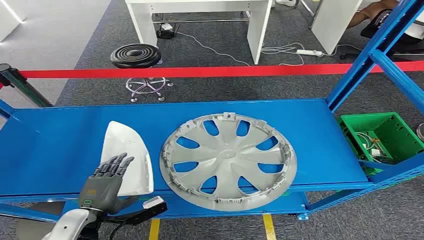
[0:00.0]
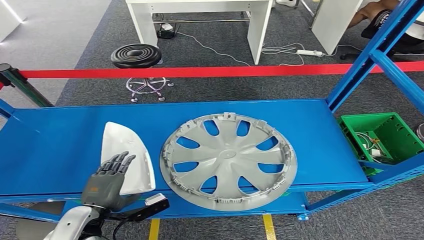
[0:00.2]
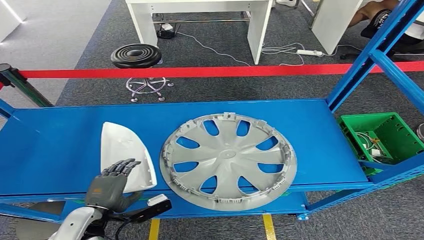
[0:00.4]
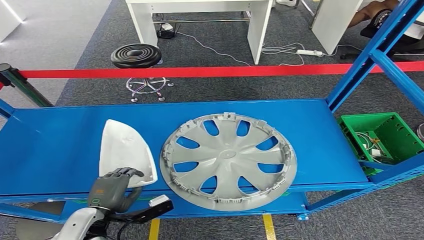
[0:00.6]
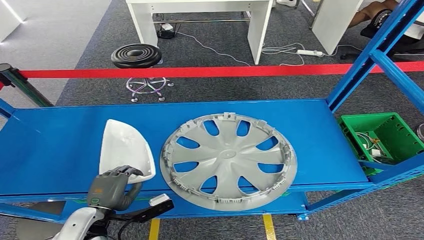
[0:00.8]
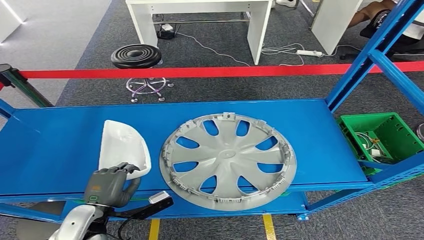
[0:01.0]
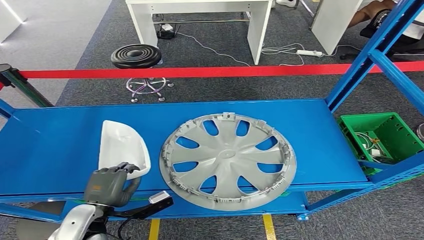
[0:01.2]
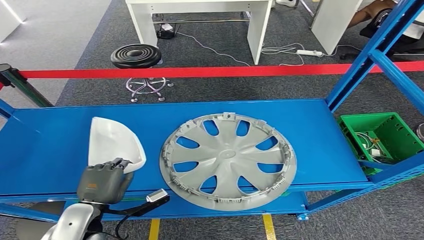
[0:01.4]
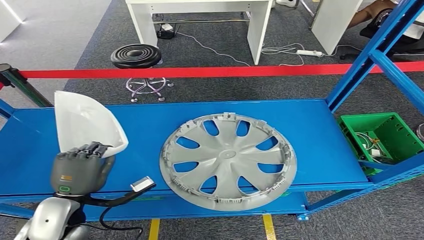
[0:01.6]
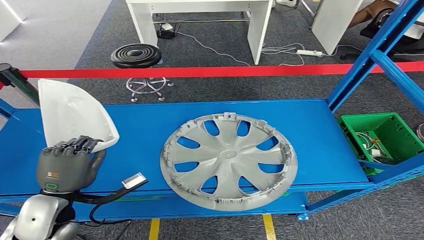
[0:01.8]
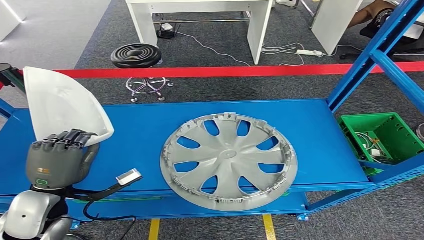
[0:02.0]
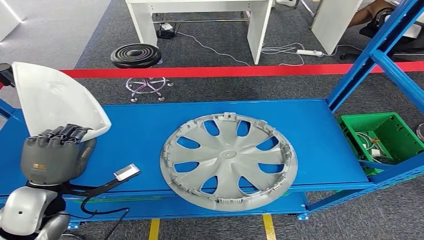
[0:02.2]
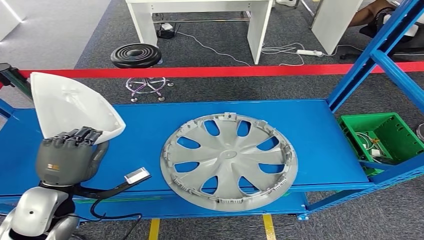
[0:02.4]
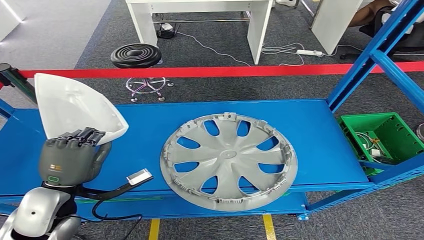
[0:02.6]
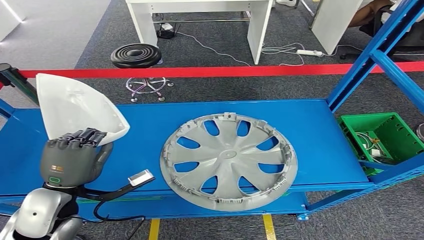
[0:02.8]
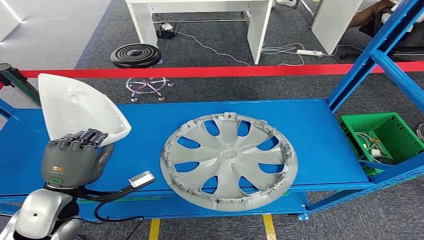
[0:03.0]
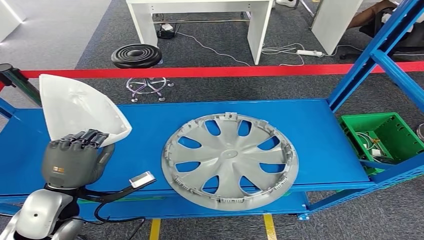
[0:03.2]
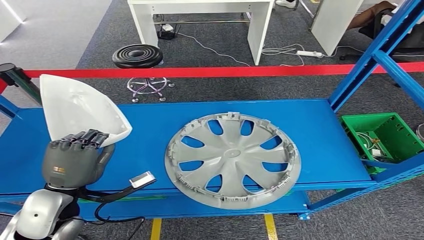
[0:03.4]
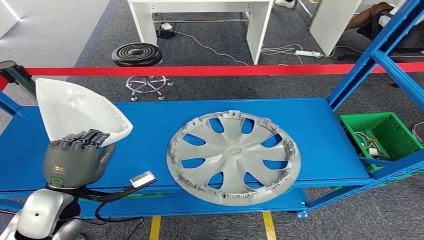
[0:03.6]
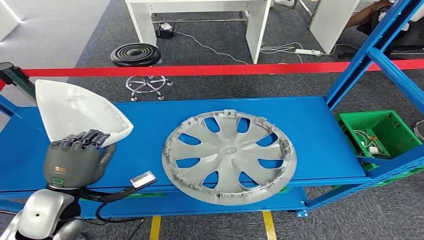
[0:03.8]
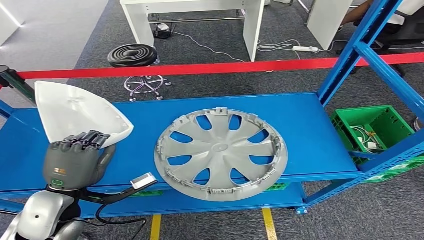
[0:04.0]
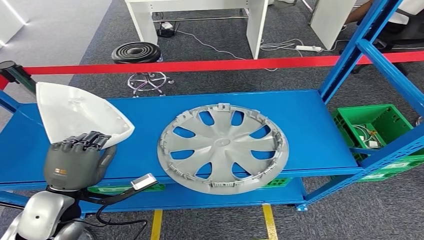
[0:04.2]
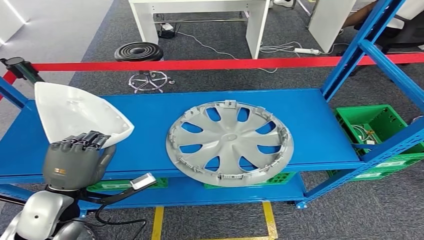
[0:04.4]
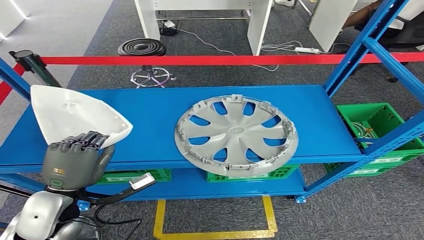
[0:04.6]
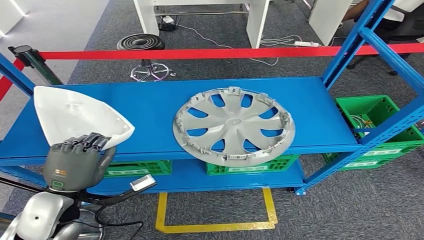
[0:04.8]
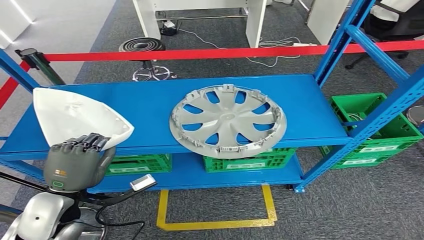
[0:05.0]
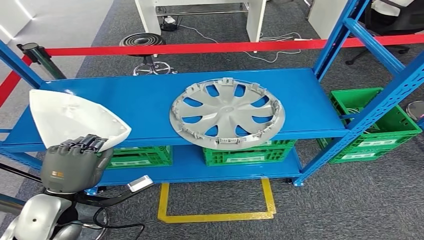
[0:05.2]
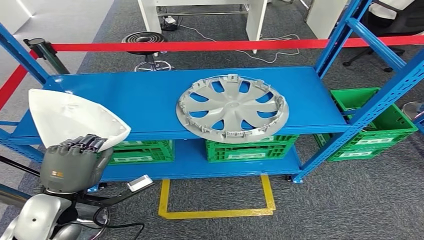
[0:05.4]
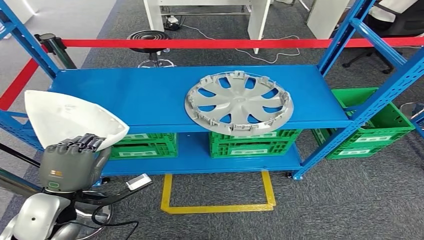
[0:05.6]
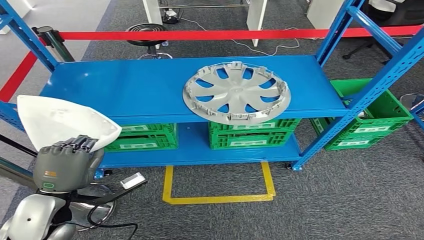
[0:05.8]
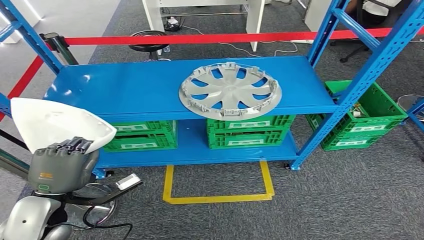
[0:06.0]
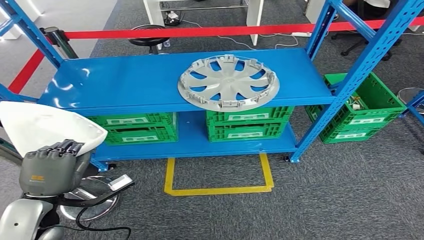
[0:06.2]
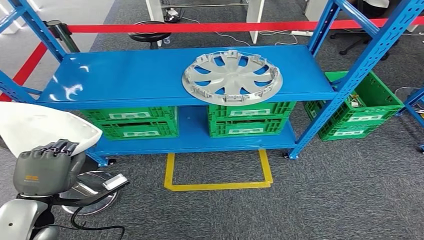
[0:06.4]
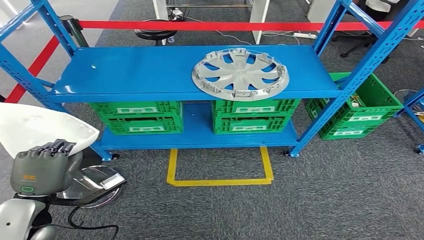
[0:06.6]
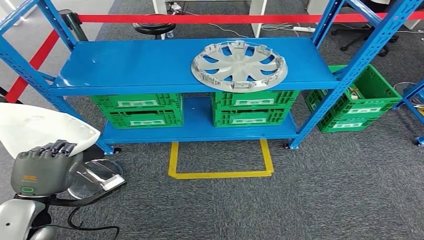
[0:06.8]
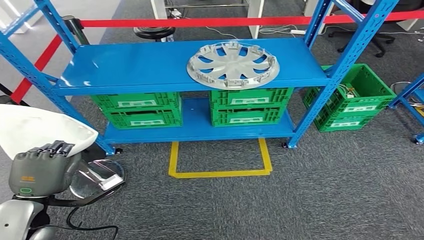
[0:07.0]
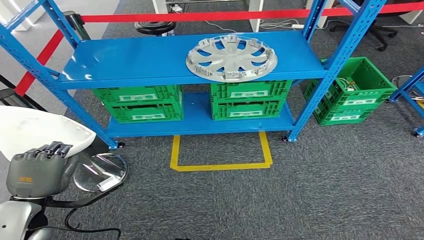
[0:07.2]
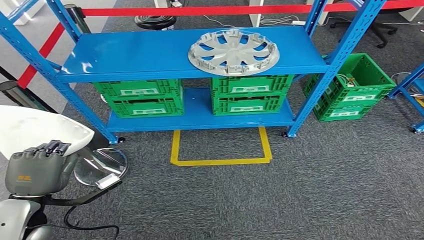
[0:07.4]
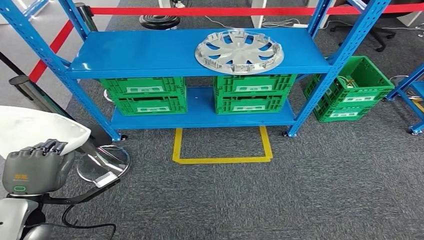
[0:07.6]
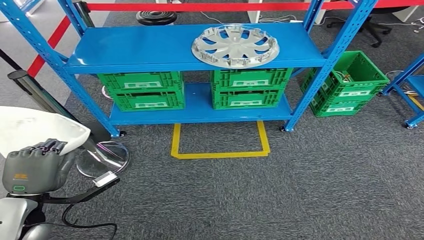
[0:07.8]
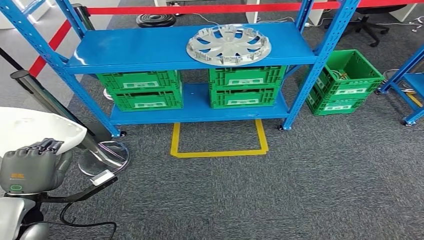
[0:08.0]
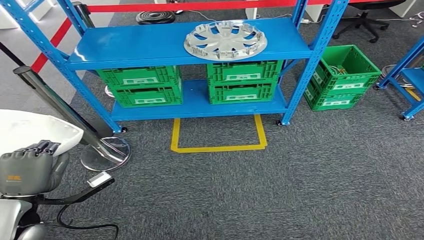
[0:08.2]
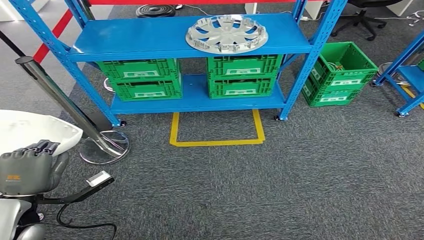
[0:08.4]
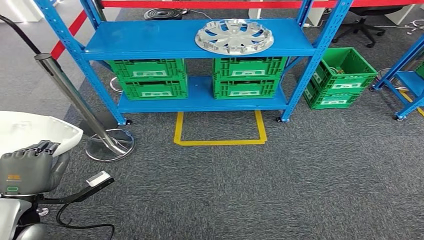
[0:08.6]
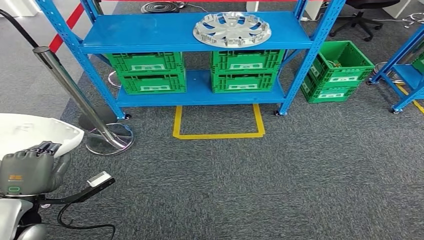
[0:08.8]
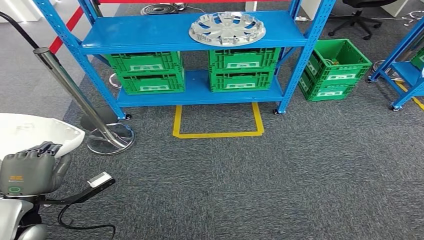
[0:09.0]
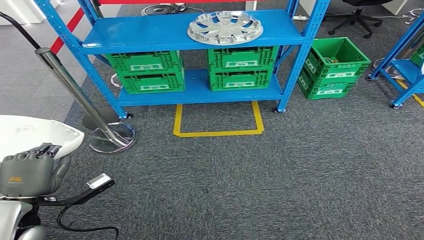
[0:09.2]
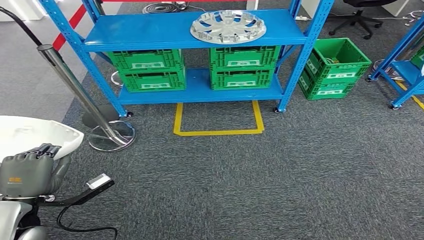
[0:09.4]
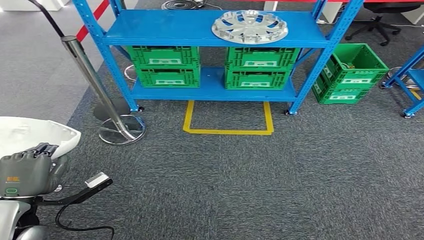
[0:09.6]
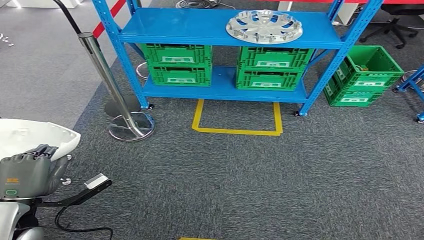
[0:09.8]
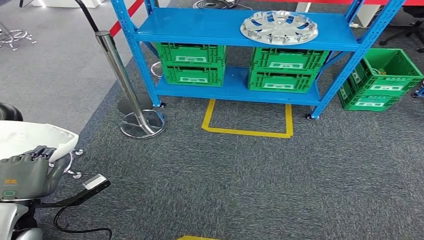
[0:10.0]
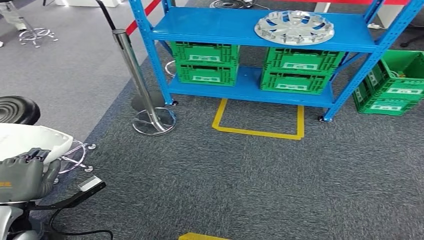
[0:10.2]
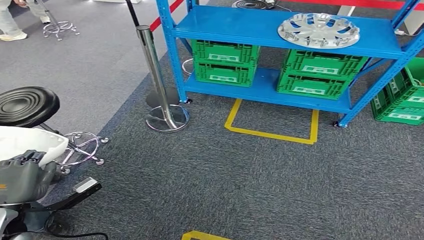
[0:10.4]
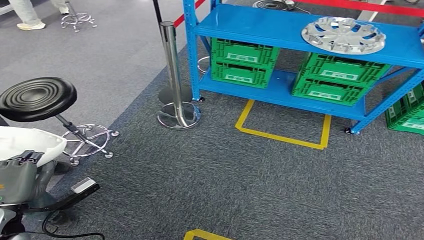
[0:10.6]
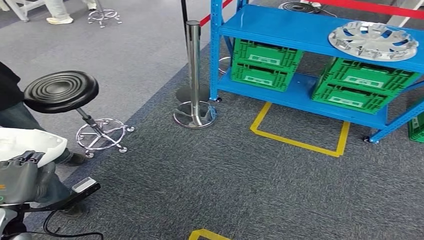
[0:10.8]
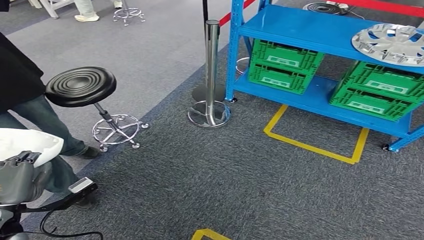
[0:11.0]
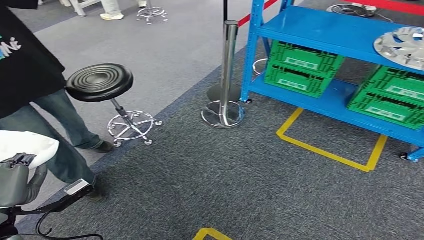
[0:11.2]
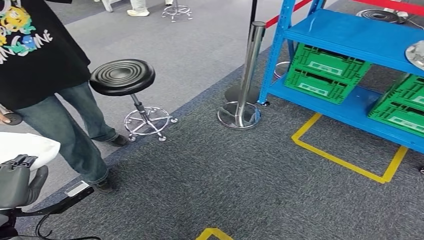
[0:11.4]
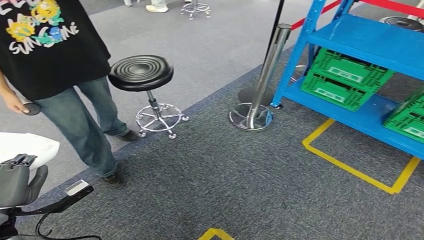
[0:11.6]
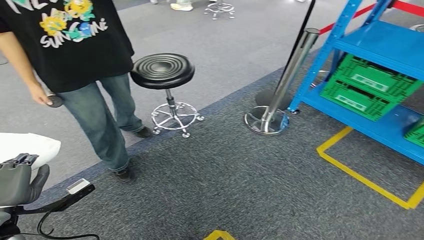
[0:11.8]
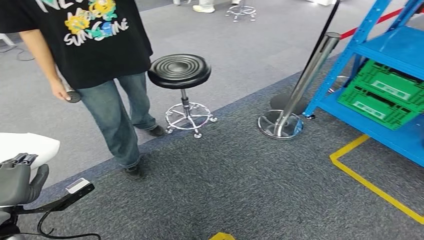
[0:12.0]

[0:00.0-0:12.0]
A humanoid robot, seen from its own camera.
Step, 0:00.0 to 0:04.2: Pick up the small parts from the shelf.
0:01.6 to 0:03.0: There are only small adjustments of the hands.

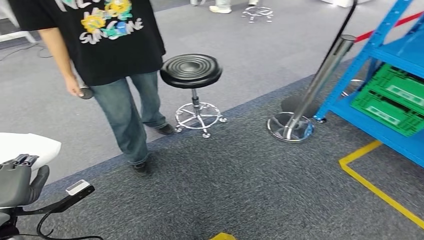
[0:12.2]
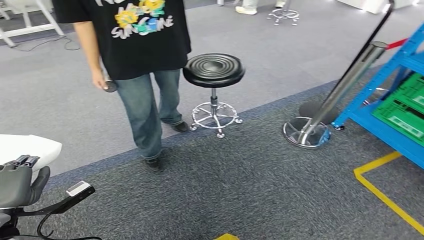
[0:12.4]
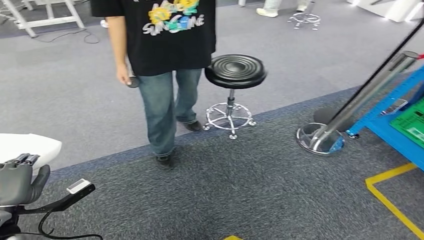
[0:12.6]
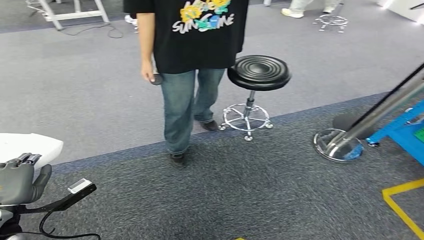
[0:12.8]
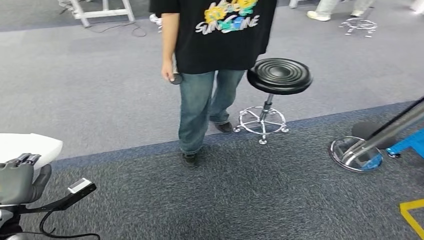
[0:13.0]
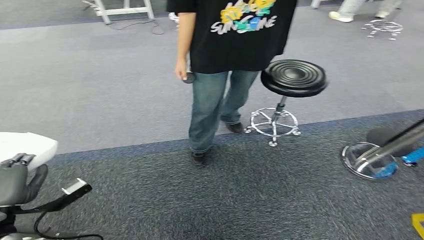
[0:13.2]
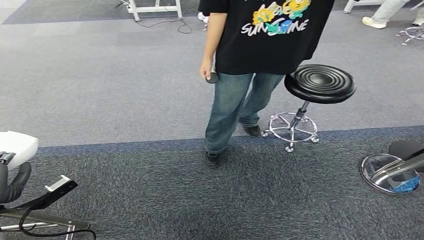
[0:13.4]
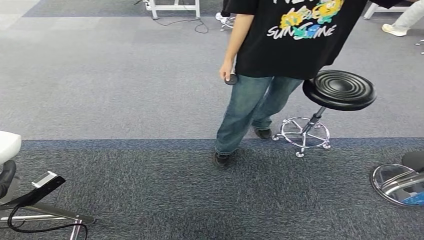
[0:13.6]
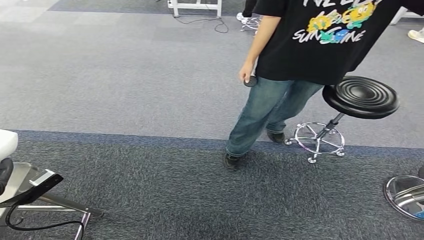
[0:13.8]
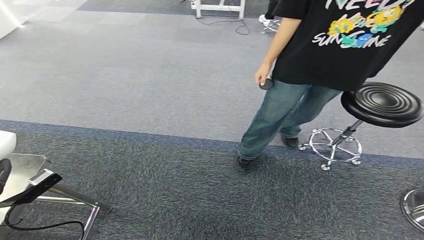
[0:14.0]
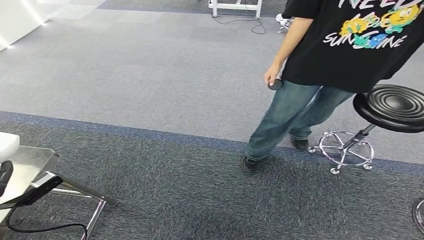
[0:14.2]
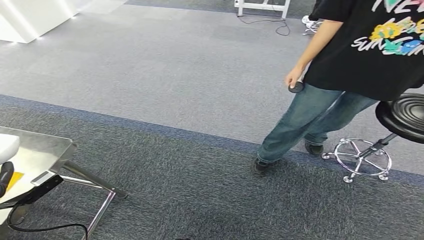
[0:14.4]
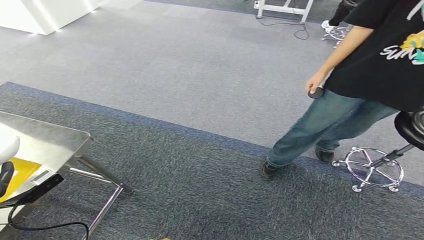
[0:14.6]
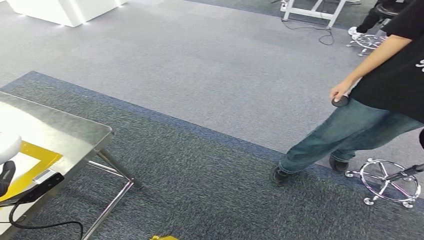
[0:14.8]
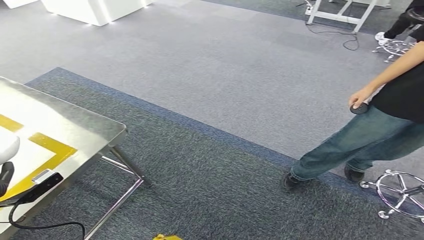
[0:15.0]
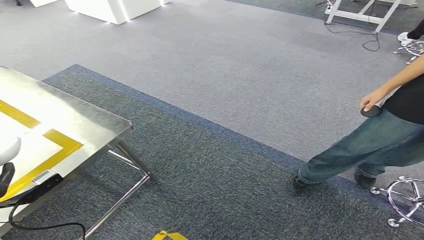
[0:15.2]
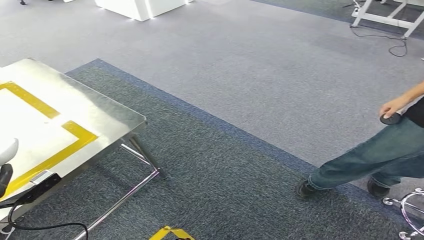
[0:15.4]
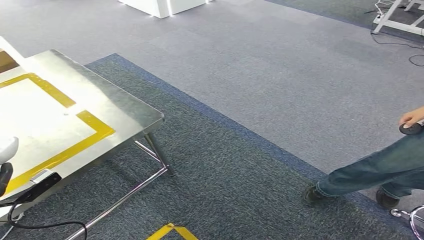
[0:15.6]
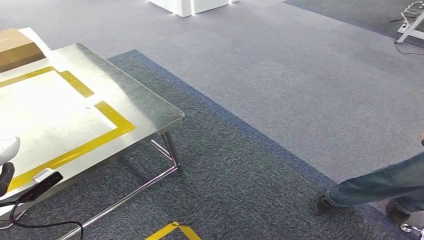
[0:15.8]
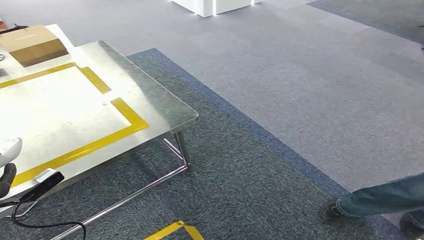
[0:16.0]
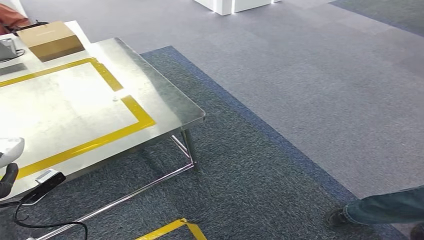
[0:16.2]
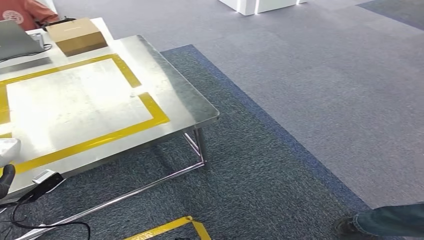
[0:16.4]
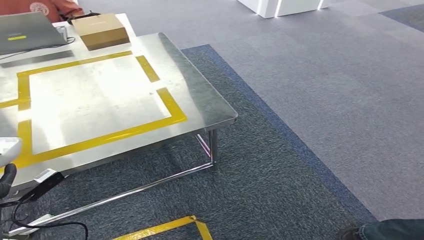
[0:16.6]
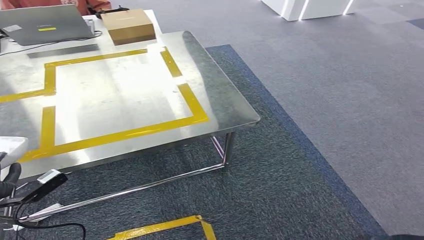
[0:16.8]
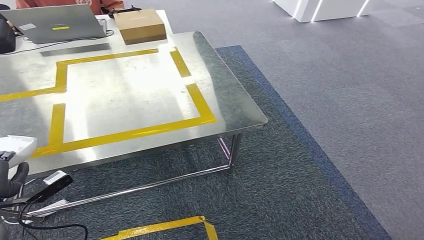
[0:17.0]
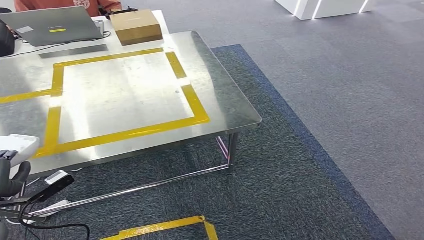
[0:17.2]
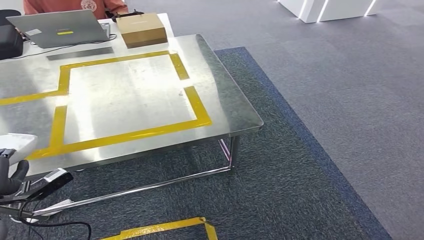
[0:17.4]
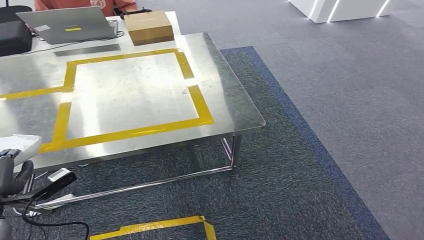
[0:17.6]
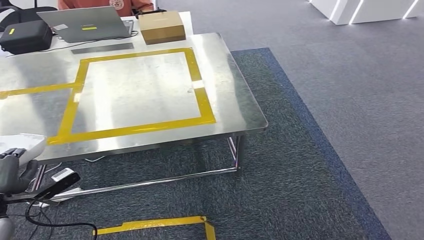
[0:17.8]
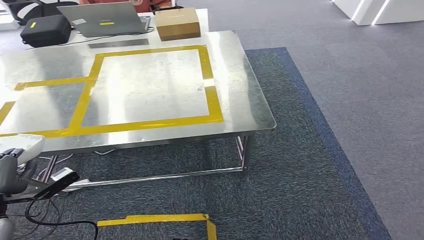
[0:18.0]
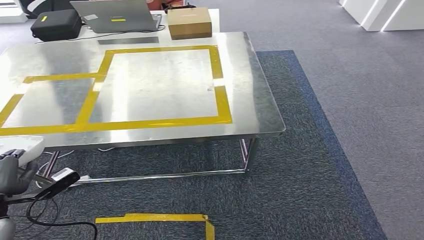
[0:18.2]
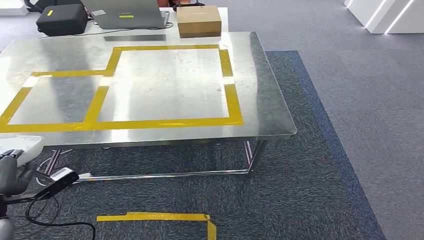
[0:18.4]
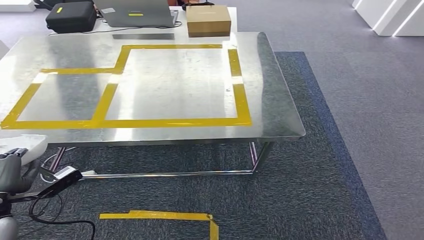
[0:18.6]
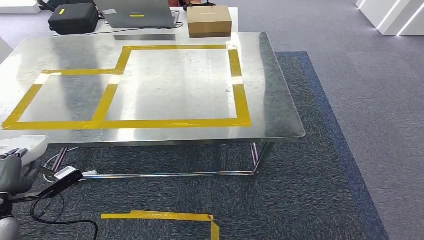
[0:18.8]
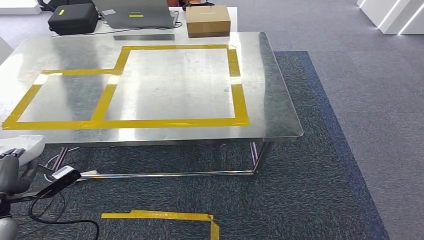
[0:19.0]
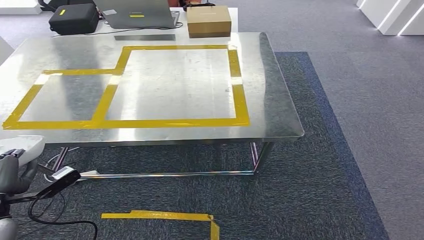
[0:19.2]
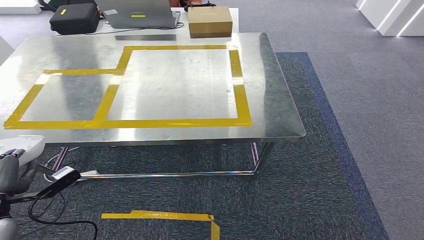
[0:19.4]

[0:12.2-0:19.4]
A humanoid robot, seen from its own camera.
Step, 0:12.2 to 0:18.4: Move the small parts to the workbench.
